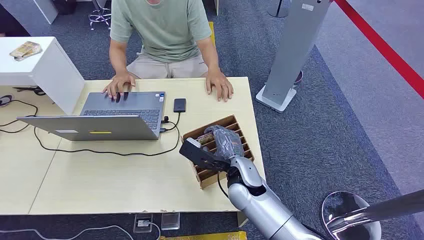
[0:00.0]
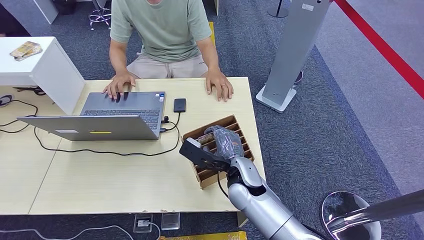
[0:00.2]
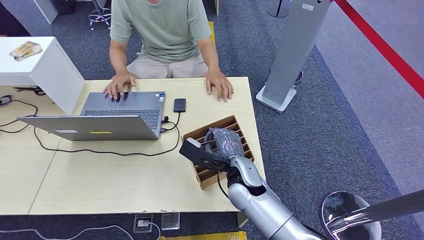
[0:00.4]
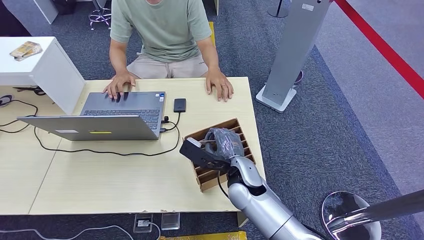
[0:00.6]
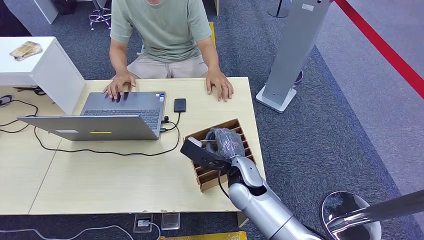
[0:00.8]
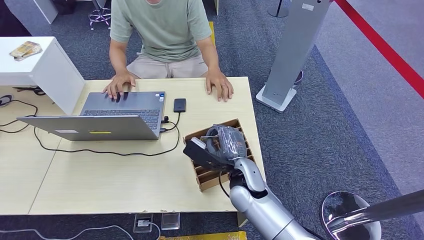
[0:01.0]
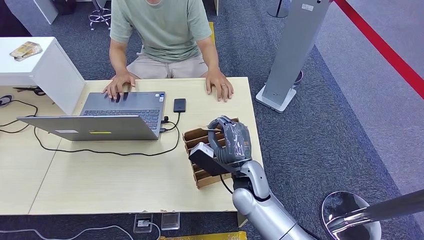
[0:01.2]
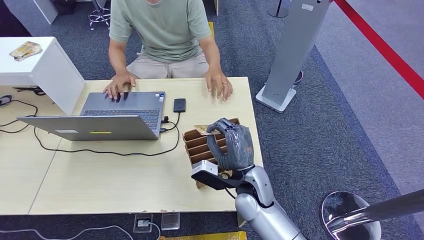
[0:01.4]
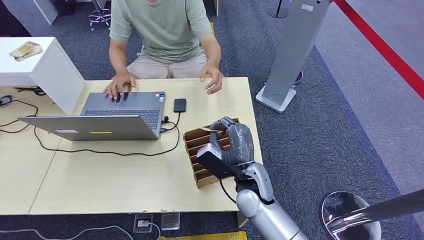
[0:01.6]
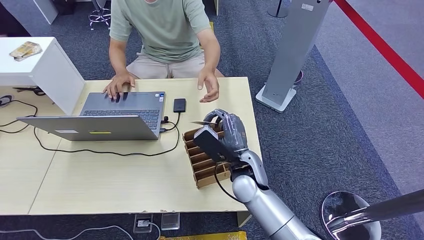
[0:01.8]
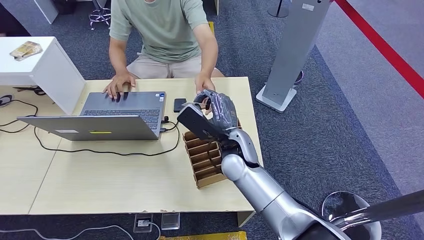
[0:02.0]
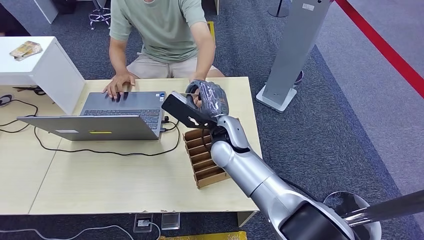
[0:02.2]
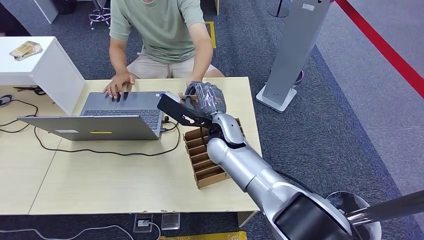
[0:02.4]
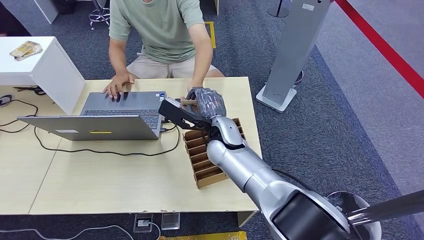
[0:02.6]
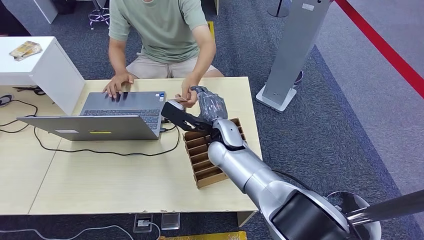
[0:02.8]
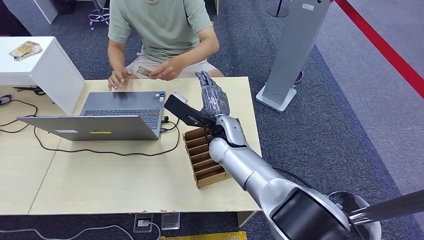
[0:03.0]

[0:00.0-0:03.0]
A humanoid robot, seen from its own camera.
Step, 0:00.0 to 0:01.2: Pick up the room card from the card holder.
Step, 0:02.0 to 0:03.0: Hand the room card to the target.
0:01.6 to 0:03.0: The right hand heads forward and upward, covering roughly 15 cm.

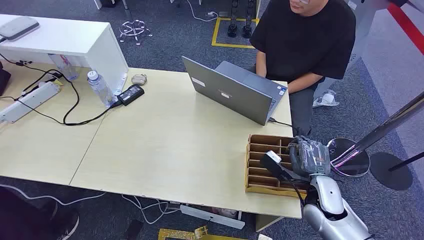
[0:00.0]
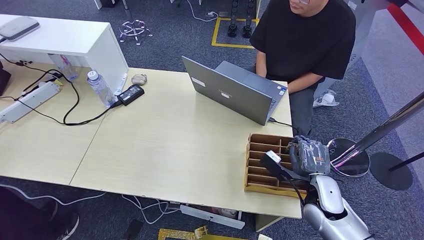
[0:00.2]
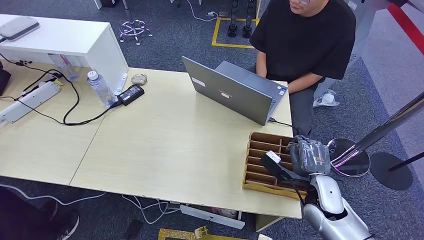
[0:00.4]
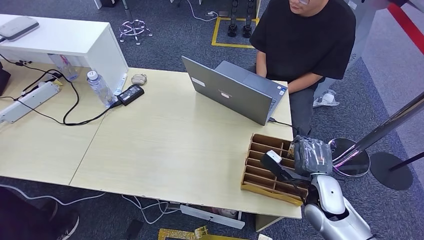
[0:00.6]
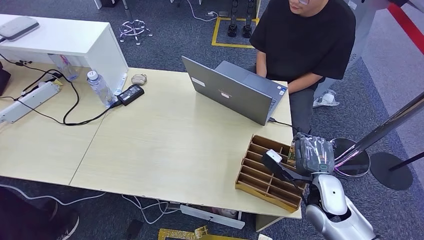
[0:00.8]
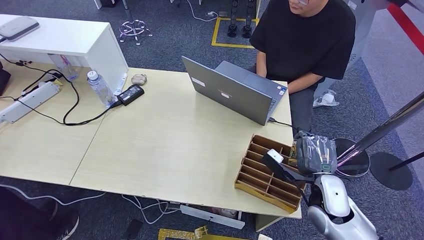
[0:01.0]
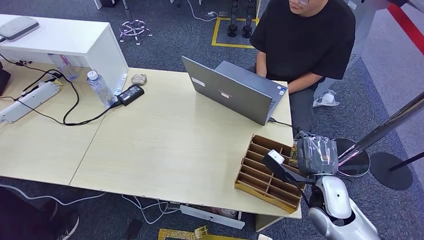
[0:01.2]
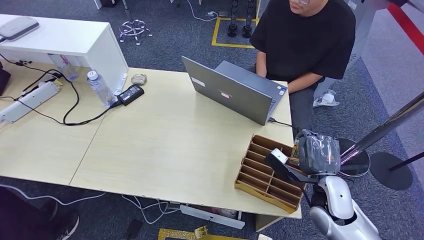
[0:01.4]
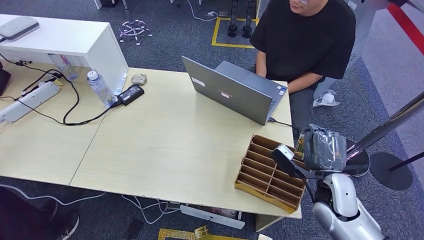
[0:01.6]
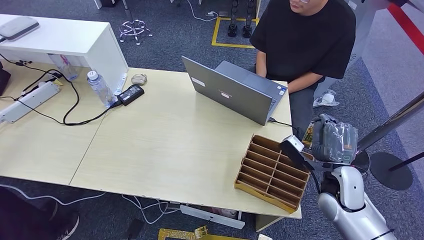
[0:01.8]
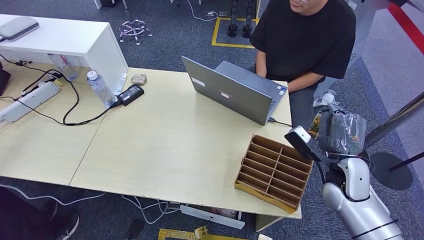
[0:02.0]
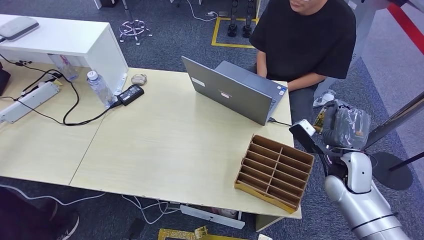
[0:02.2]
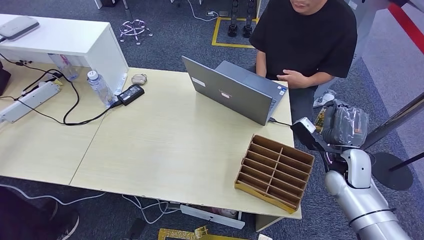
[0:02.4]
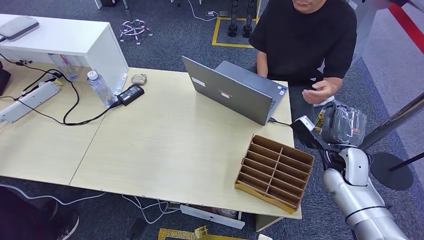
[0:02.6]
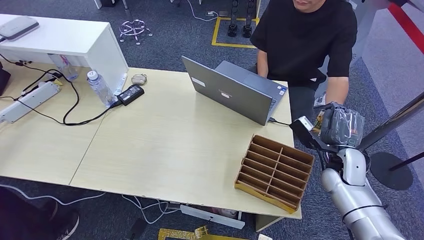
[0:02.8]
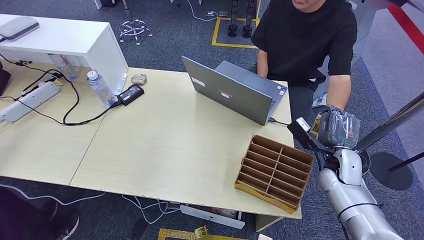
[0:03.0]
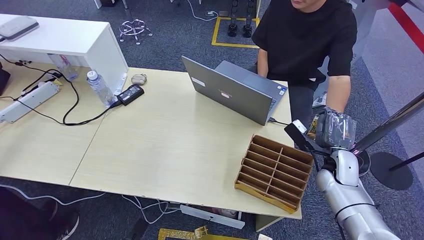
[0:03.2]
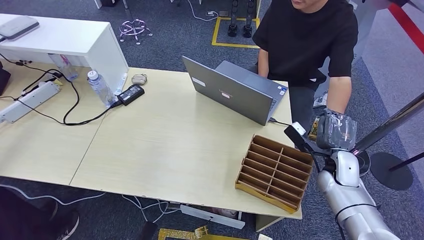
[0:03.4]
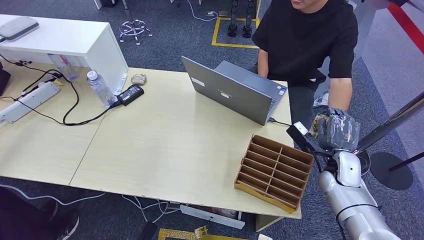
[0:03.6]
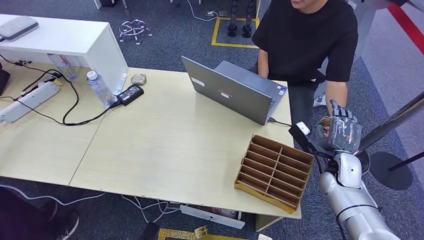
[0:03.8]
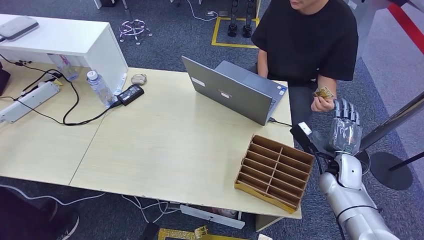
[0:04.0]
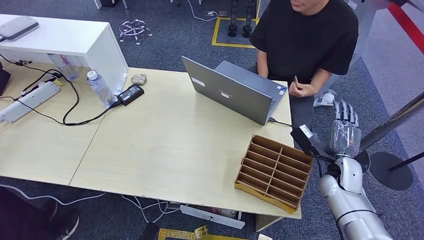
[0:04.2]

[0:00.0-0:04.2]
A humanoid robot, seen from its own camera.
Step, 0:00.0 to 0:02.4: Pick up the room card from the card holder.
Step, 0:02.6 to 0:04.2: Hand the room card to the target.
0:01.4 to 0:02.8: The right hand travels forward by some 10 cm.
